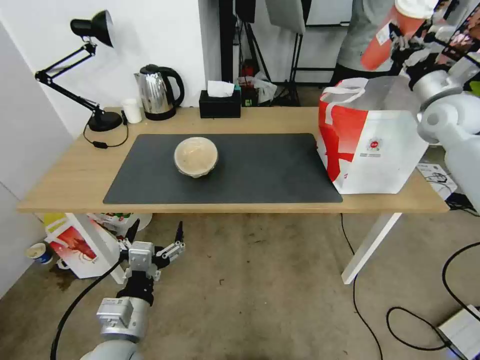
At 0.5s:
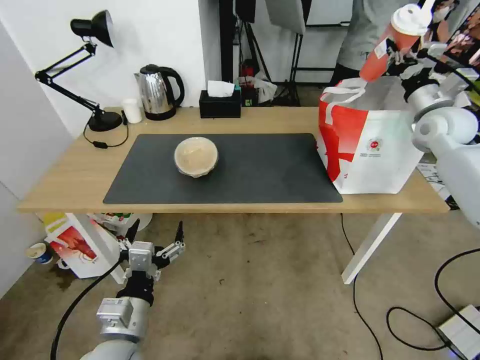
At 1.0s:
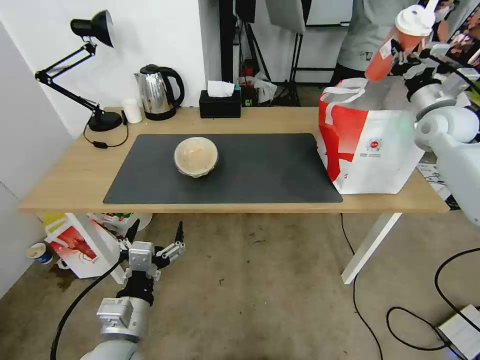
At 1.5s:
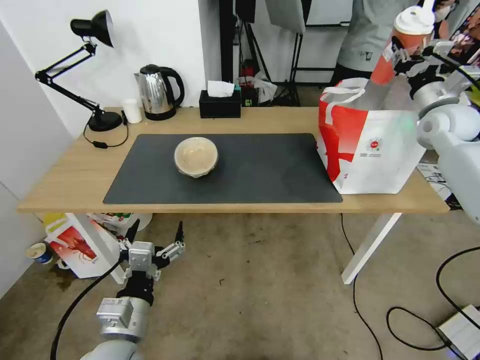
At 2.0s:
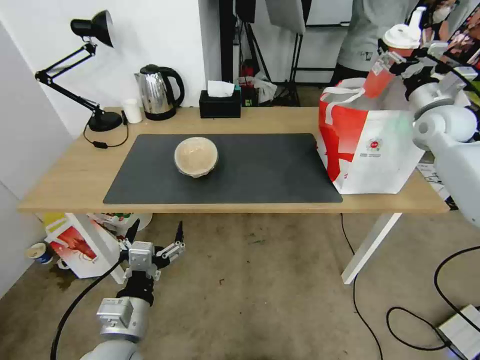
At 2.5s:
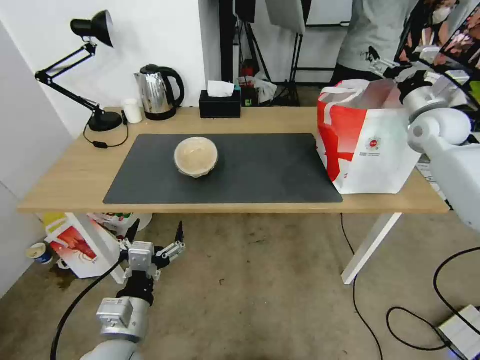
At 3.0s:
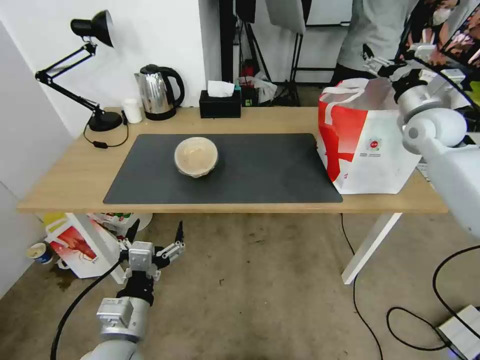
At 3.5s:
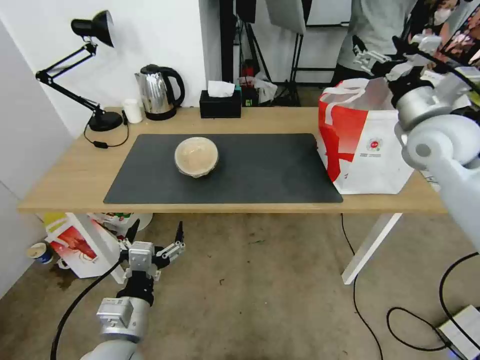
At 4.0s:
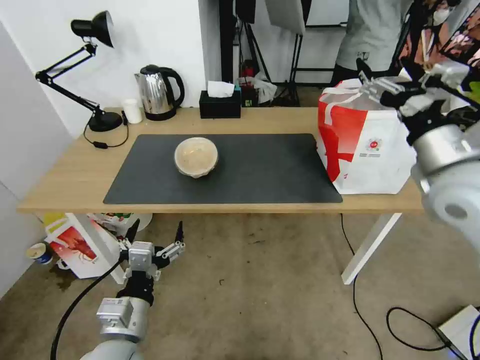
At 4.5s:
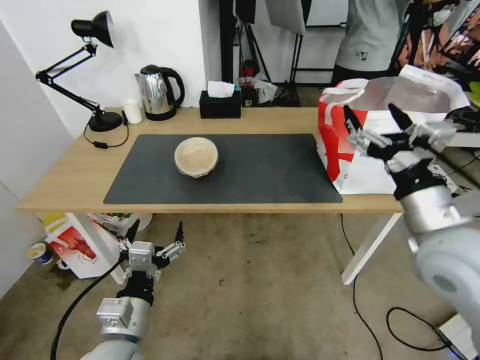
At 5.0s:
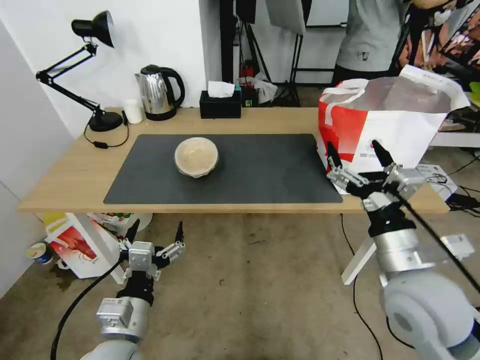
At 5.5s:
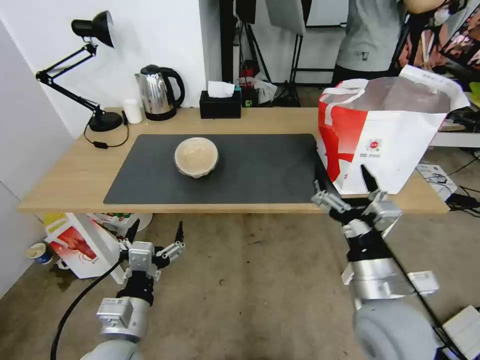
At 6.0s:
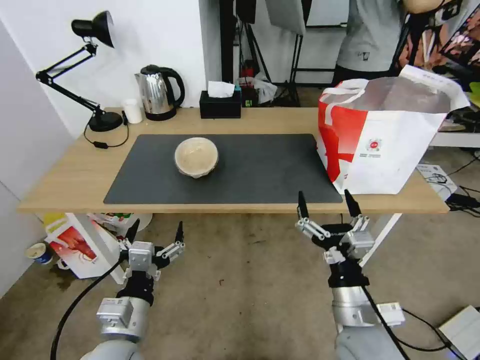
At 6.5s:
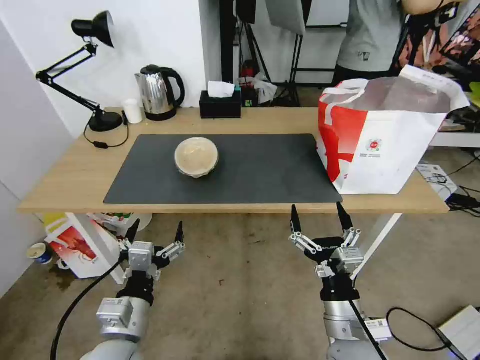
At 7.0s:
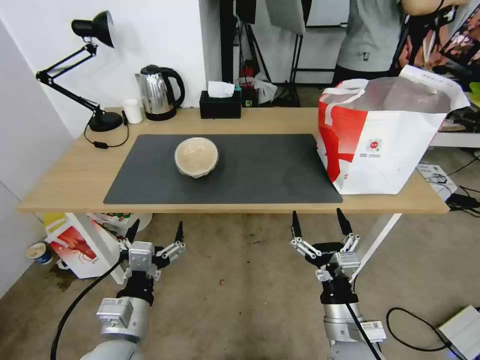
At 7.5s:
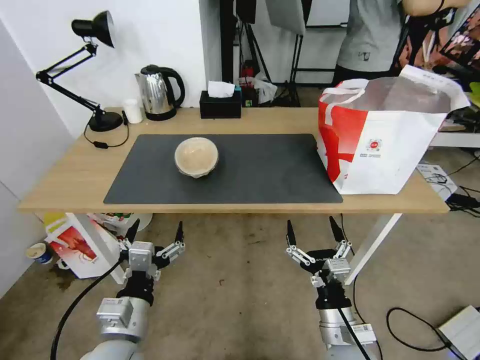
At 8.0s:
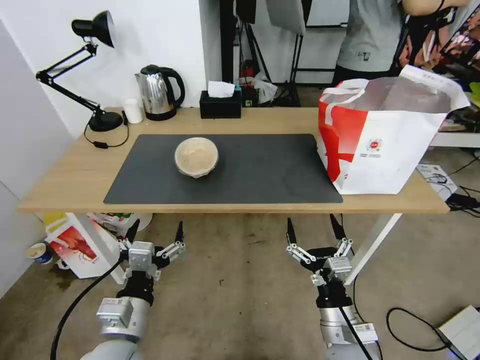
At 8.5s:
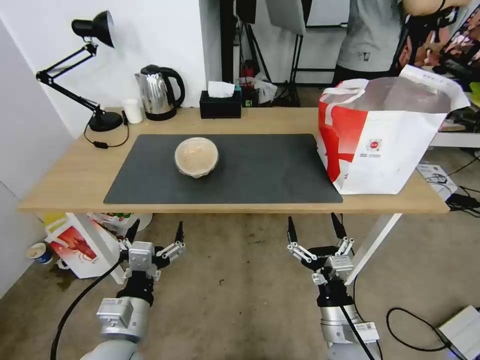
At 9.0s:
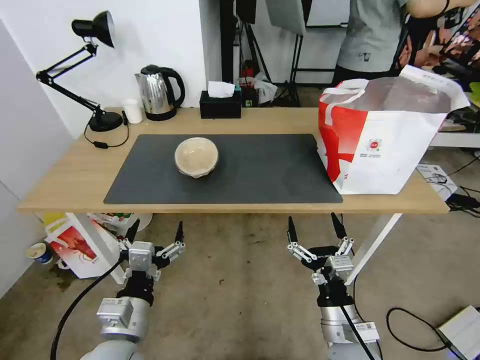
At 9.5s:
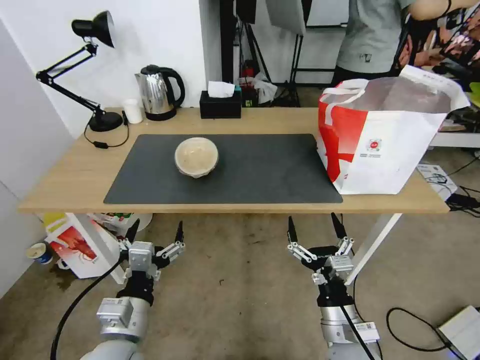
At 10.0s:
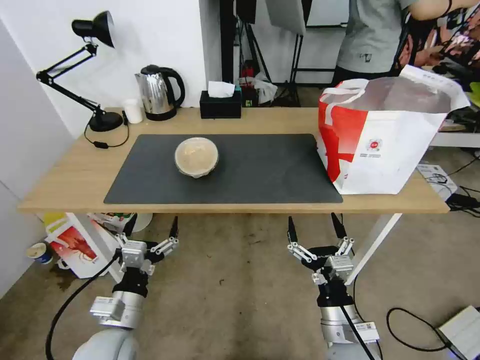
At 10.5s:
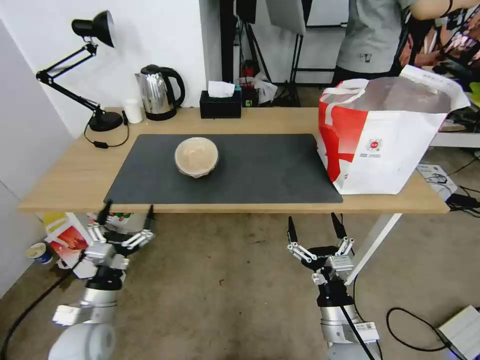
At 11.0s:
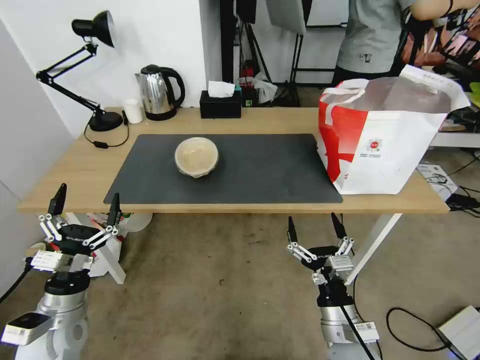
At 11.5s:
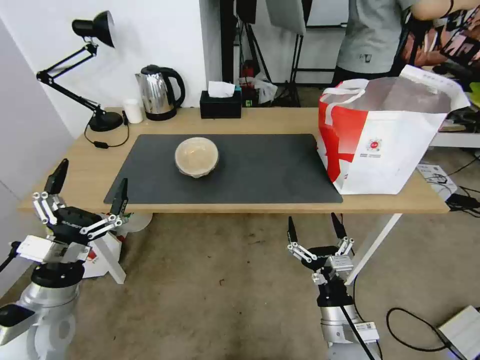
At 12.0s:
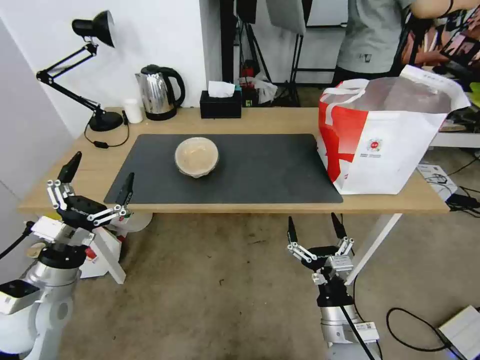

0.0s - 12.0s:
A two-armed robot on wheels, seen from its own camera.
Task of the whole recording: Pick up the trash from the table and place it into the takeout bag.
0.0s - 2.0s: The right gripper opens.
2.0s - 4.0s: The right gripper moves backward and to the left, approximately 25 cm.
4.0s - 6.0s: The right gripper goes about 30 cm downward, backward and to the left.
6.0s - 8.0s: The right gripper goes approximately 5 cm downward.
8.0s - 10.0s: The left gripper ends up roughly 5 cm from where it was.
10.0s - 12.0s: The left gripper travels to the left and upward by roughly 15 cm.

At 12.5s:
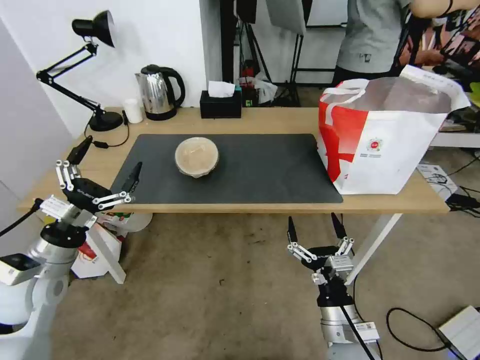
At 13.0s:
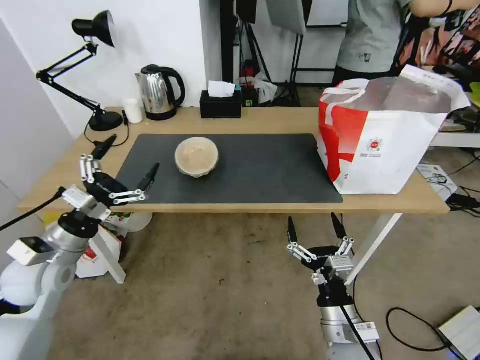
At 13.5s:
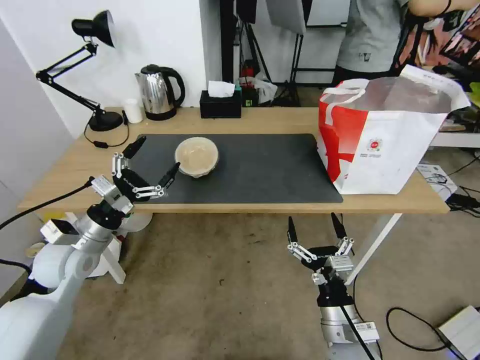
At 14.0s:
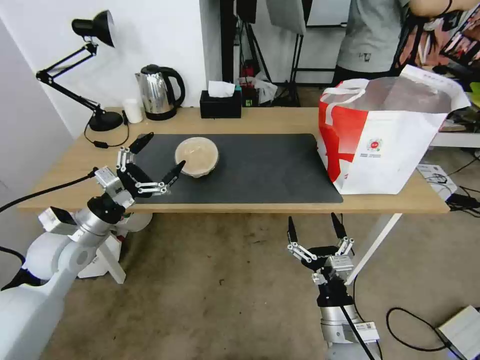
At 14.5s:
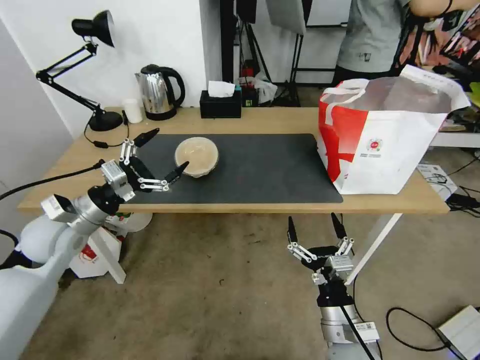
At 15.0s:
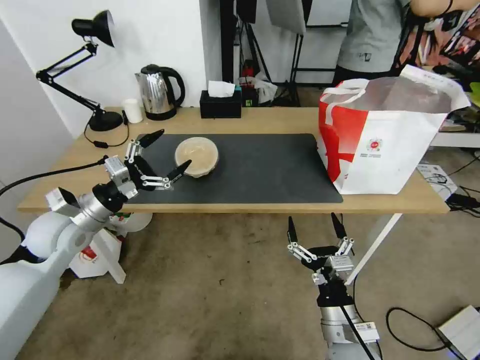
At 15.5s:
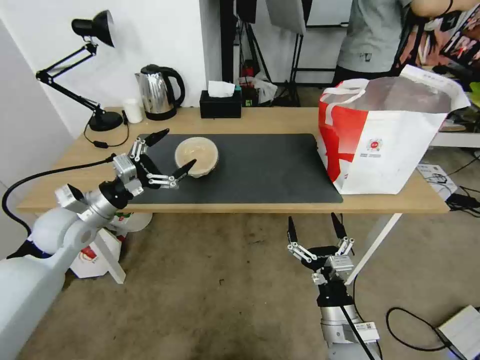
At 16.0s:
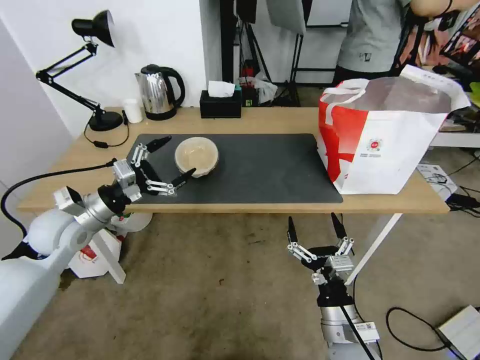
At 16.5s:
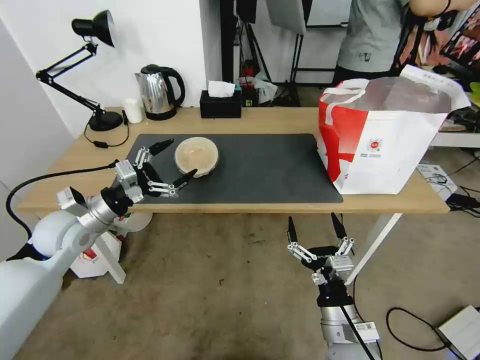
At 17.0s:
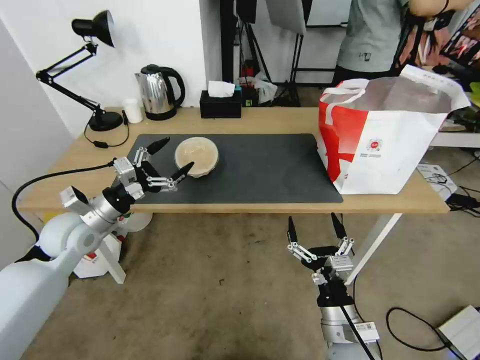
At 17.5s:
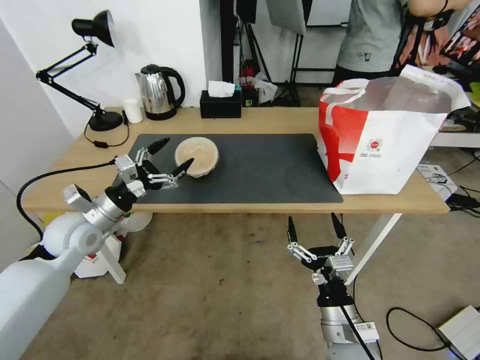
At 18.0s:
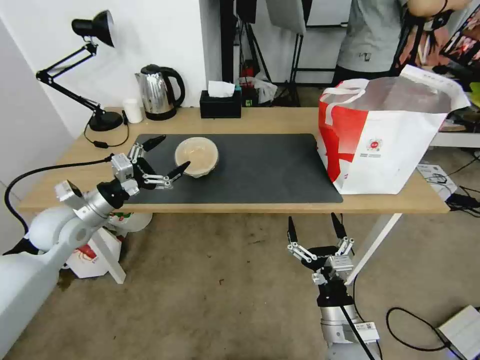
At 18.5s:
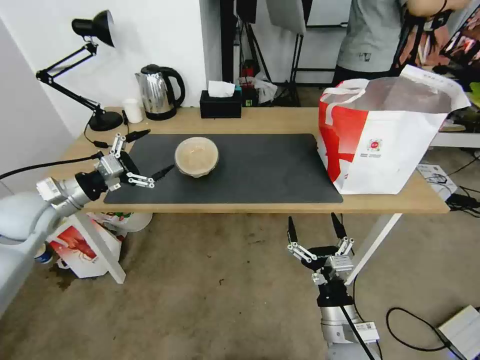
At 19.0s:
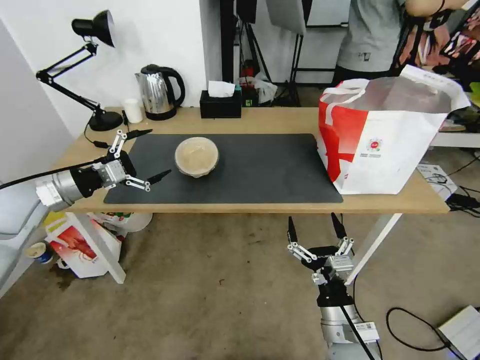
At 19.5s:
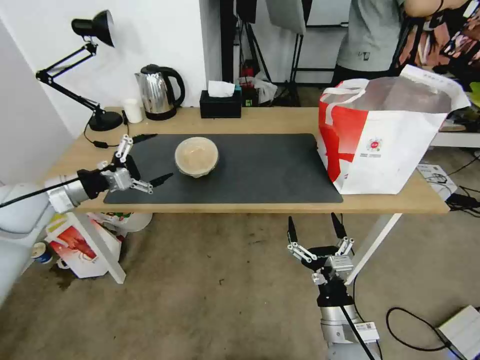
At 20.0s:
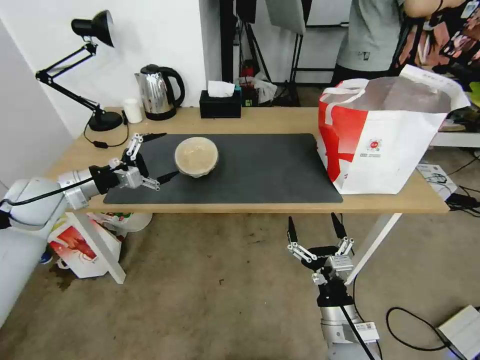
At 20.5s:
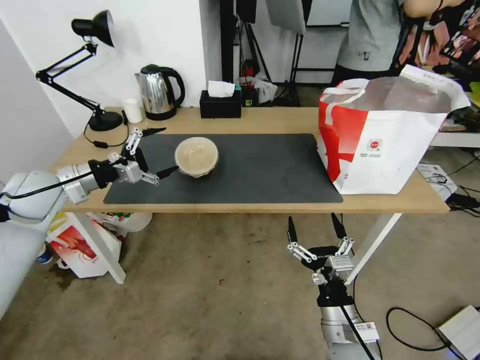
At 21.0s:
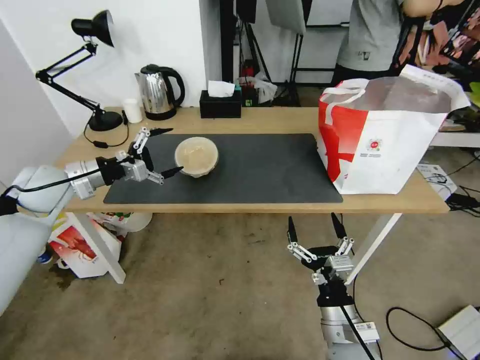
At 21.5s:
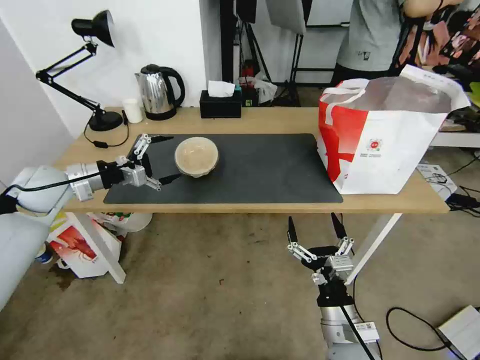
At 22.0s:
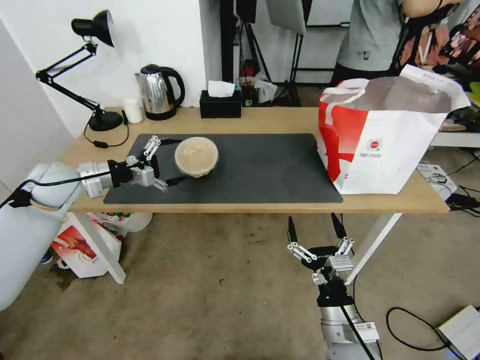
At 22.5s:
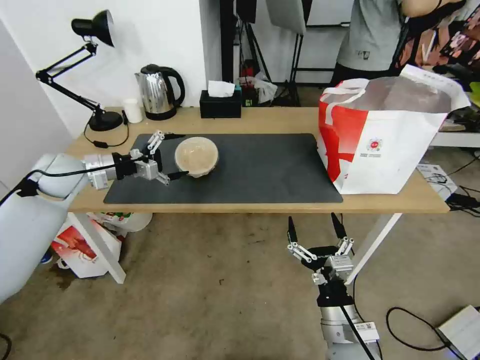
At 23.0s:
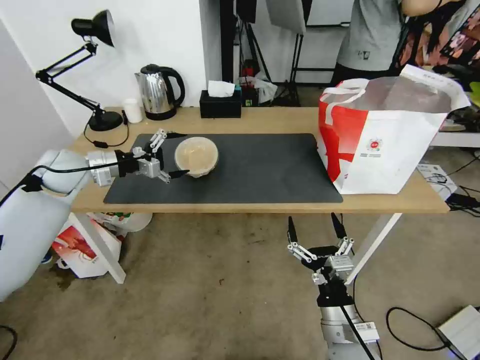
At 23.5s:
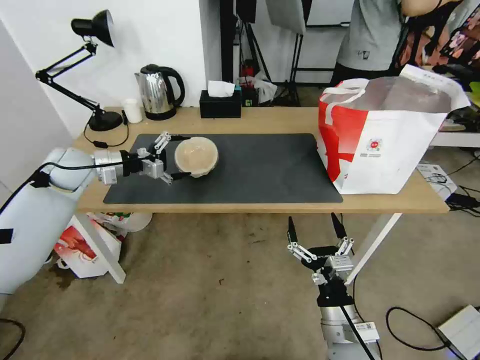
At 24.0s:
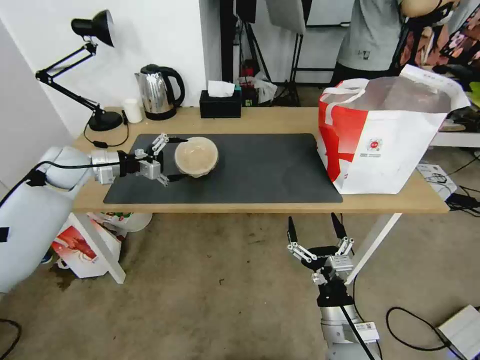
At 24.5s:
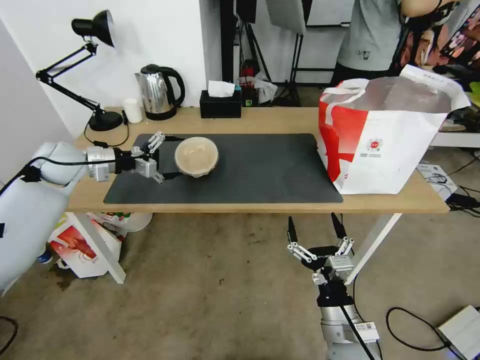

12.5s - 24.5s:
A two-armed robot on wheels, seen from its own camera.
Task of the whole recording: Pick up the trash from the table and place it into the takeout bag.
12.5s - 14.5s: The left gripper is displaced forward by about 10 cm.
14.5s - 16.5s: The grippers move only a little.
16.5s - 18.5s: The left gripper travels to the left by roughly 5 cm.
20.5s - 22.5s: The left gripper goes approximately 5 cm forward.
22.5s - 24.5s: There are only small adjustments of the grippers.

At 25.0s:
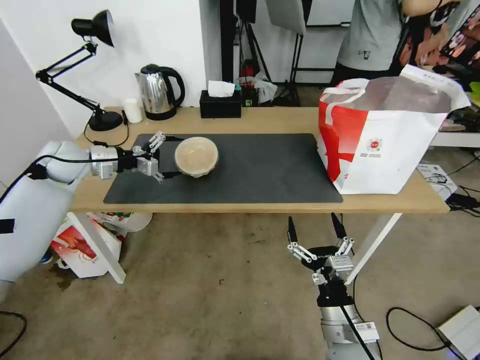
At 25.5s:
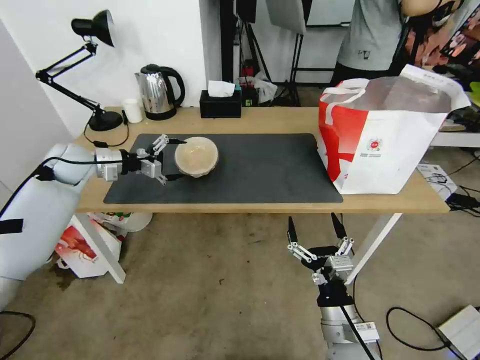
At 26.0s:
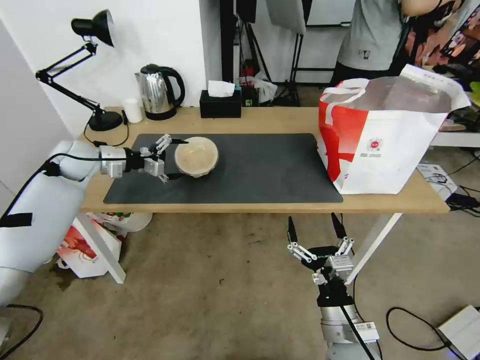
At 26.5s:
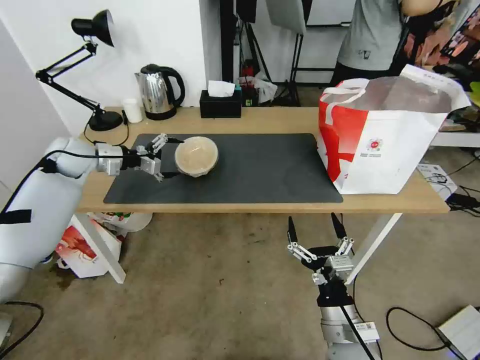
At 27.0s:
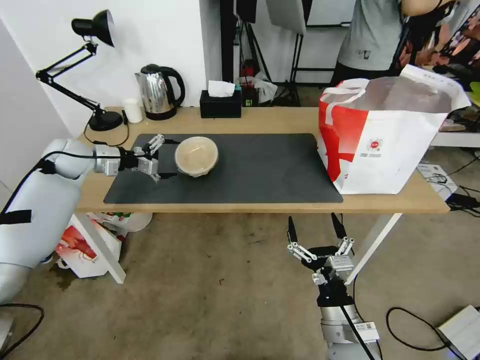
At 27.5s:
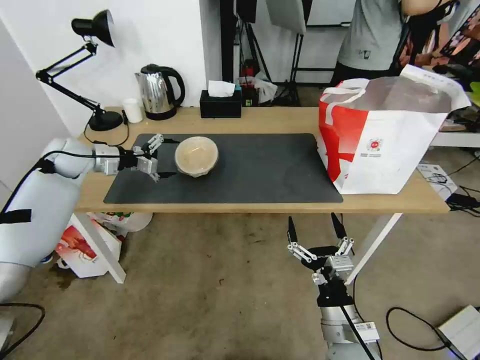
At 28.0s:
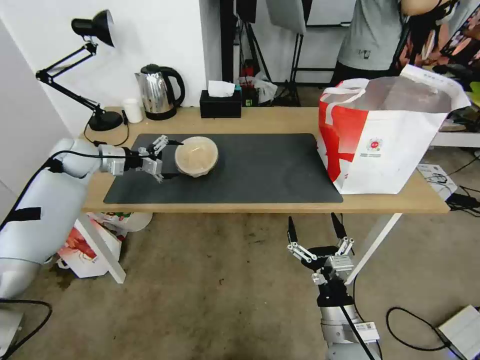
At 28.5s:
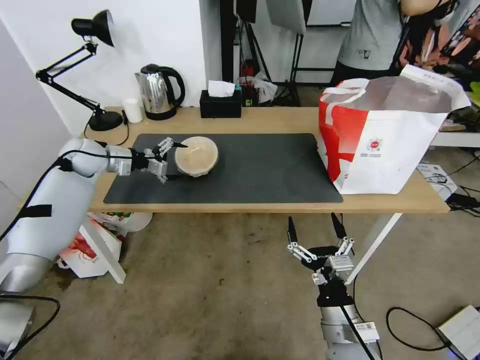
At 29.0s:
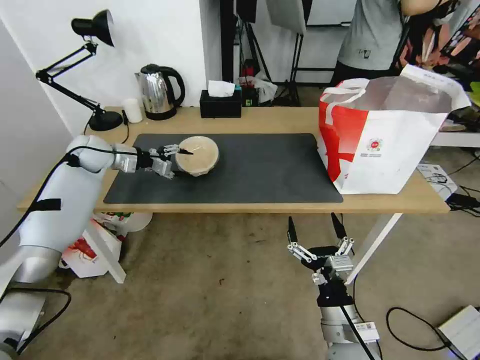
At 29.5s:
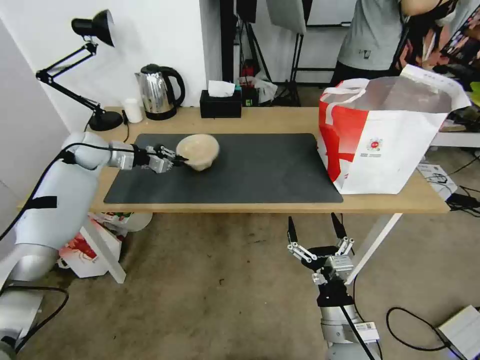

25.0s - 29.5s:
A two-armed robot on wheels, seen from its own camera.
Task of the whole recording: Pick up the trash from the table and place it into the takeout bag.
25.0s - 27.0s: The grippers stay close to where they were, moving slightly.
27.0s - 29.5s: The left gripper closes.
